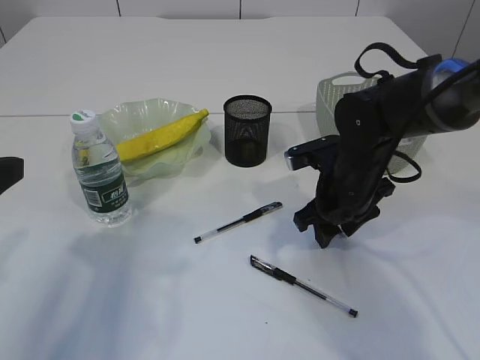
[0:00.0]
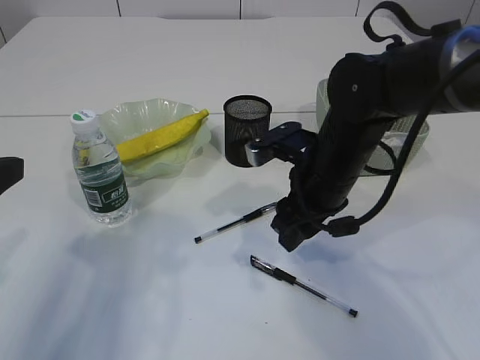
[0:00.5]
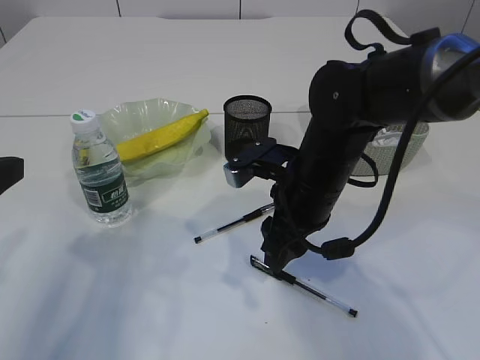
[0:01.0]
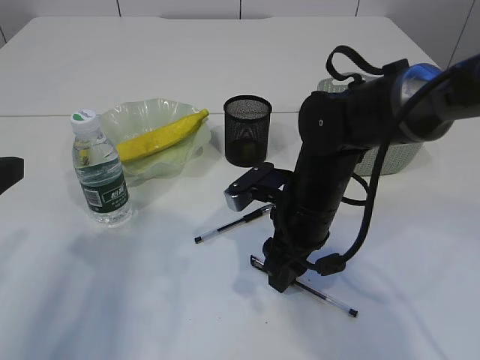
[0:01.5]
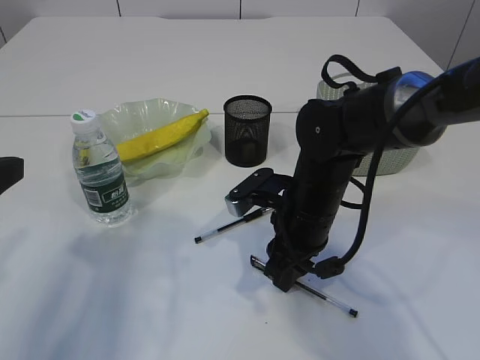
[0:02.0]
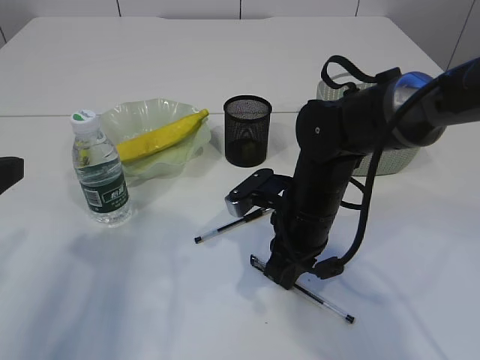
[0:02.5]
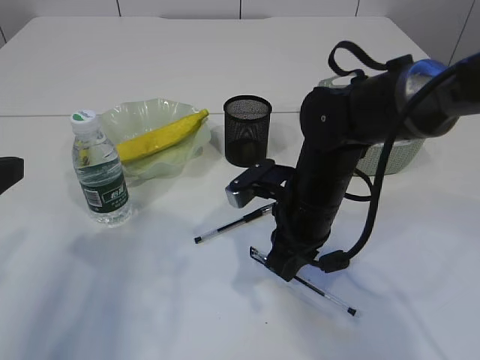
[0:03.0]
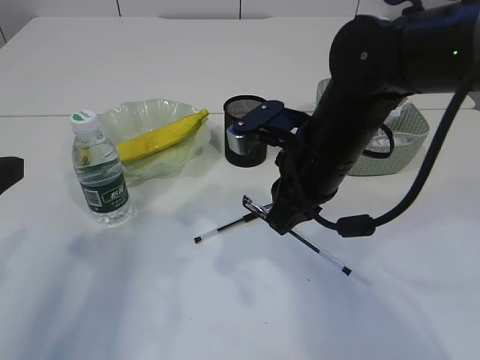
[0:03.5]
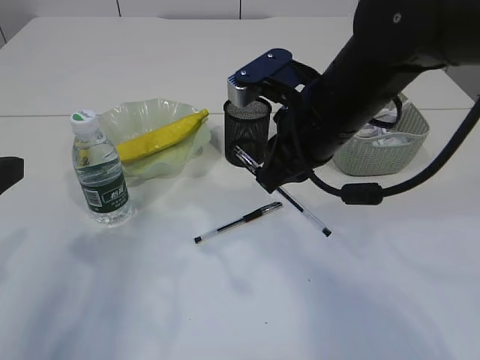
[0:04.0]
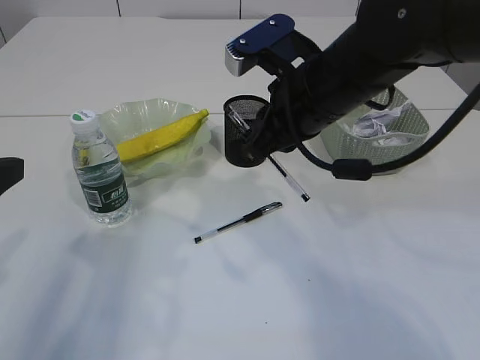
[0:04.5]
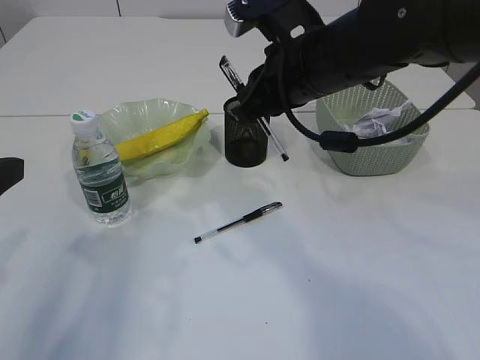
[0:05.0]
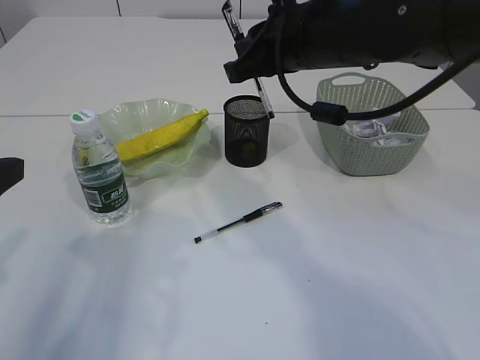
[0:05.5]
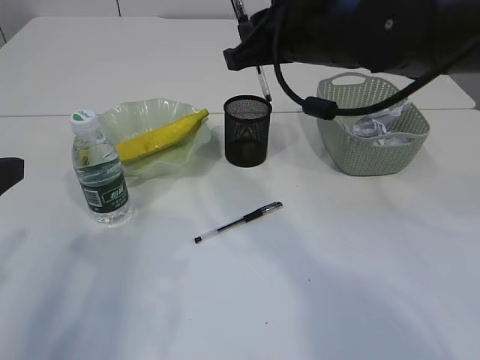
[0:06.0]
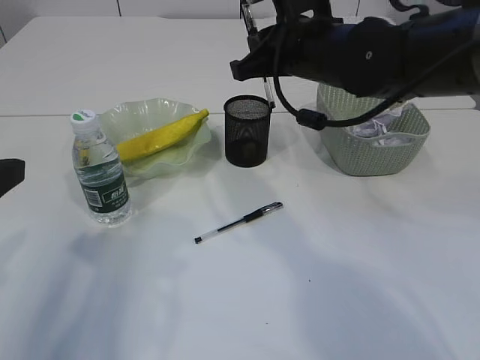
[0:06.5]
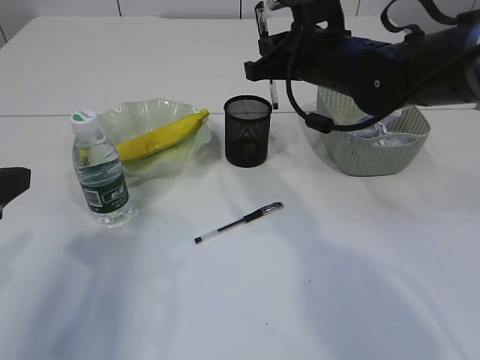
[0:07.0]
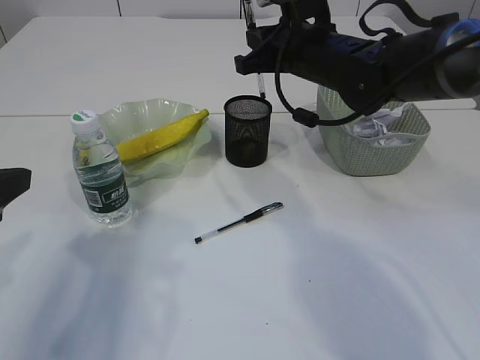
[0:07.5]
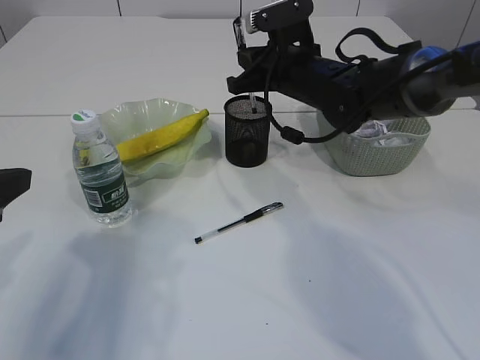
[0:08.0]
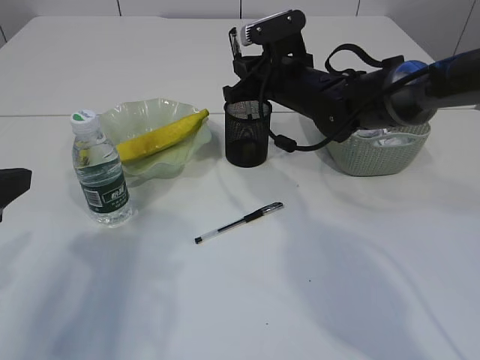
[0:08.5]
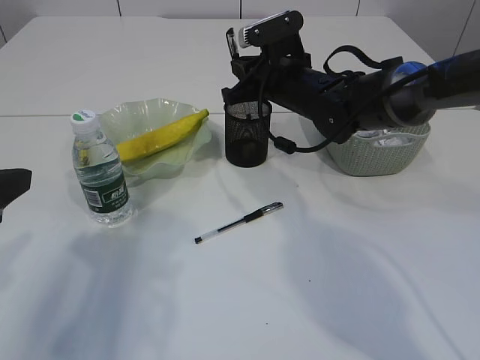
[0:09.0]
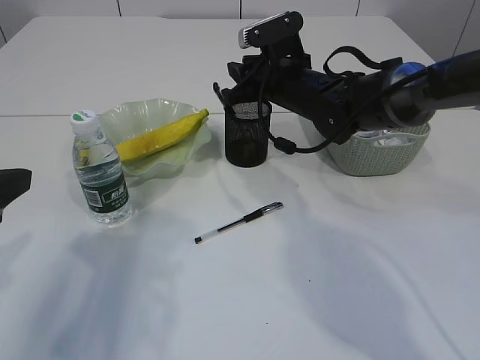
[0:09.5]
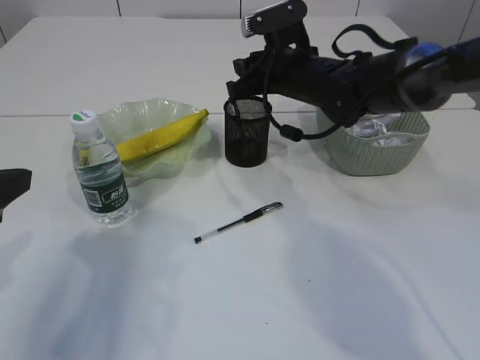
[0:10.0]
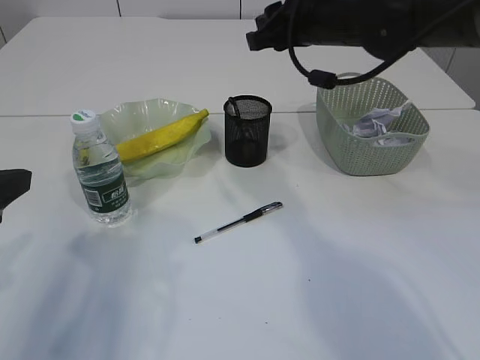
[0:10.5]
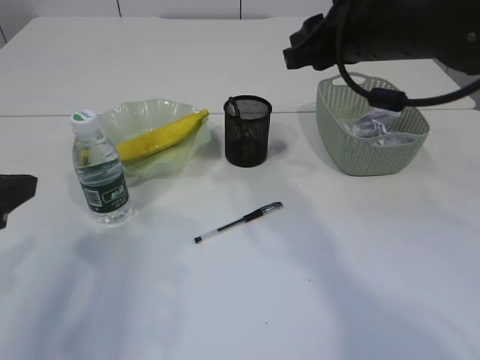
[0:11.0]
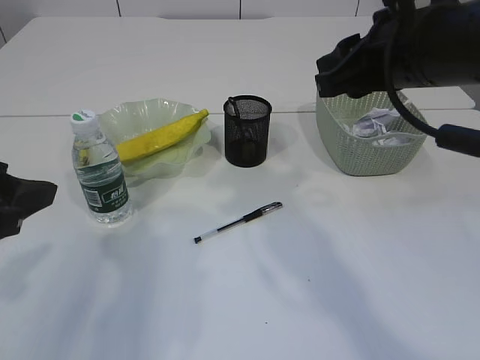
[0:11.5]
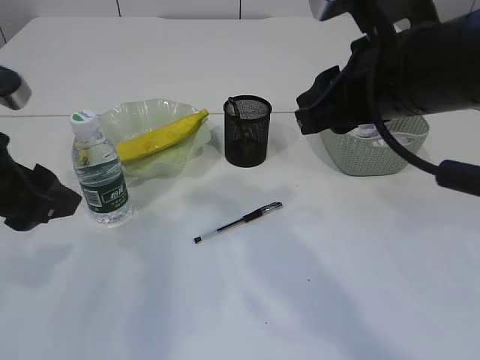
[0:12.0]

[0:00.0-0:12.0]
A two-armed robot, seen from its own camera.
Step, 0:00.0 to 0:03.5: Pick up the pen with right arm.
Step, 0:04.0 to 0:10.0: Place the pen into the pen holder.
0:00.0 to 0:02.0: The right gripper travels to the left by roughly 5 cm.
0:02.0 to 0:04.0: The right gripper shifts roughly 10 cm upward.
0:04.0 to 0:06.0: The right gripper shifts some 5 cm forward.
0:06.0 to 0:08.0: The right gripper heads downward and forward, covering approximately 10 cm.
0:08.0 to 0:10.0: The right gripper opens its fingers.
0:10.0 to 0:12.0: The left gripper ends up approximately 5 cm from where it was. Meanwhile the right gripper is displaced backward and upward by about 20 cm.

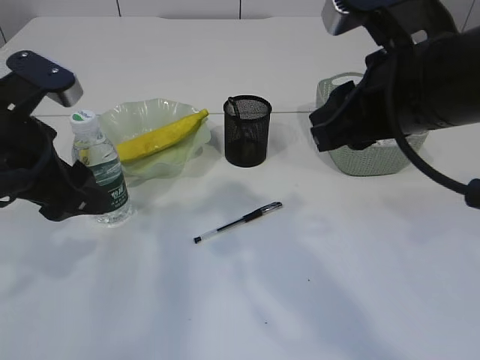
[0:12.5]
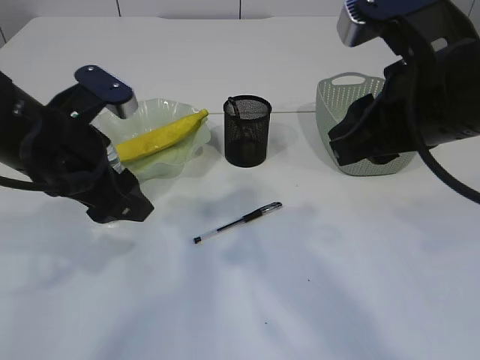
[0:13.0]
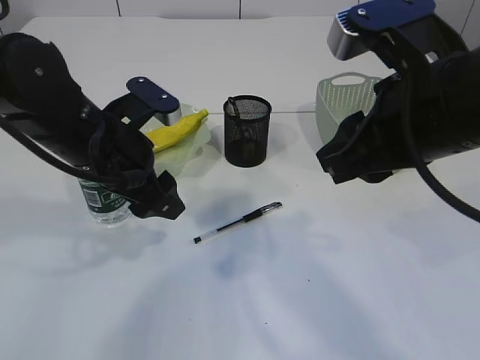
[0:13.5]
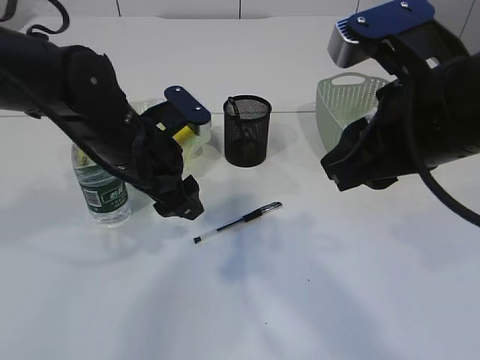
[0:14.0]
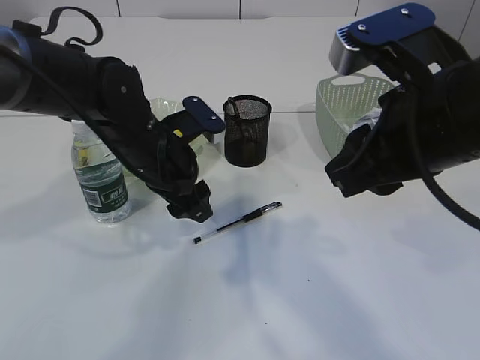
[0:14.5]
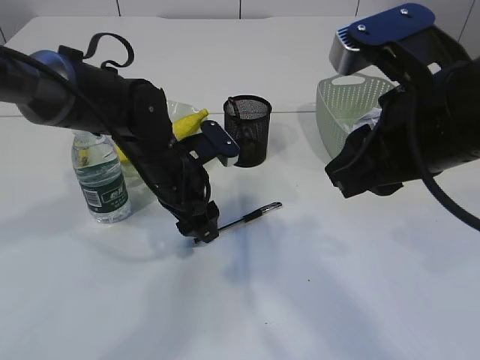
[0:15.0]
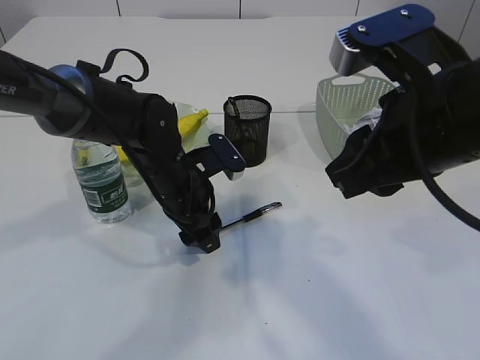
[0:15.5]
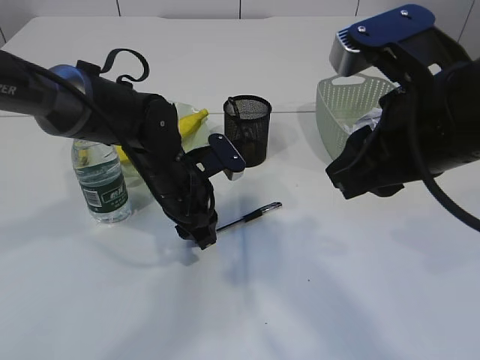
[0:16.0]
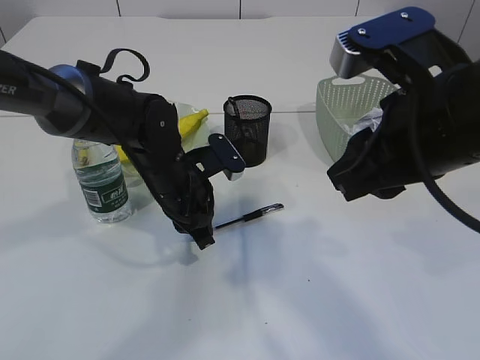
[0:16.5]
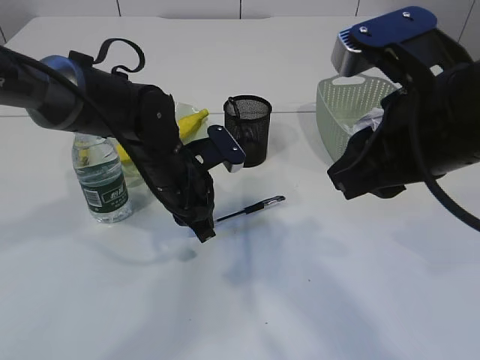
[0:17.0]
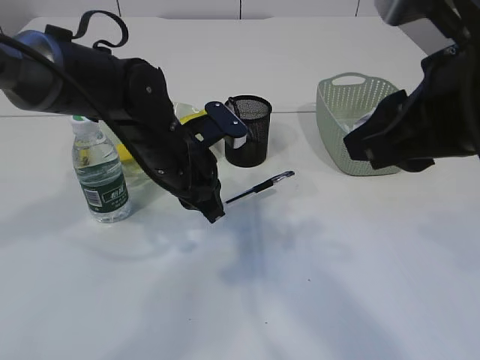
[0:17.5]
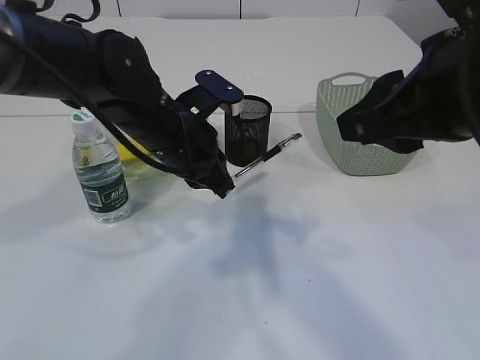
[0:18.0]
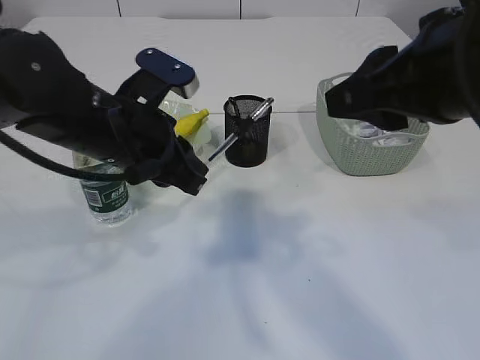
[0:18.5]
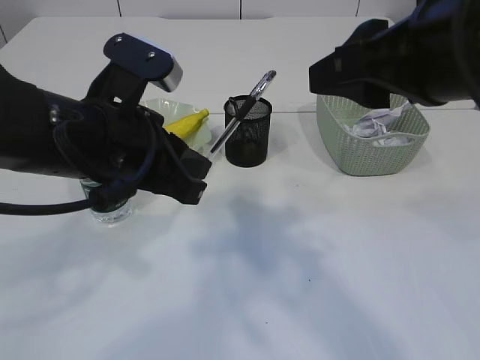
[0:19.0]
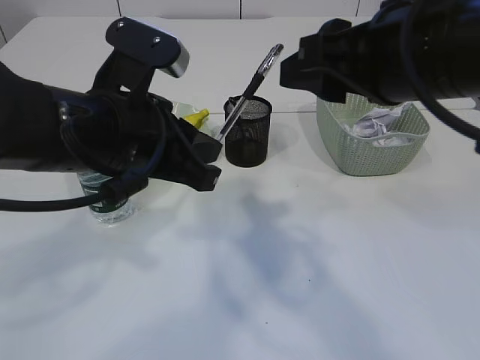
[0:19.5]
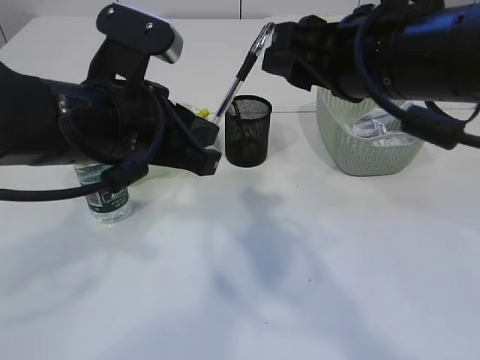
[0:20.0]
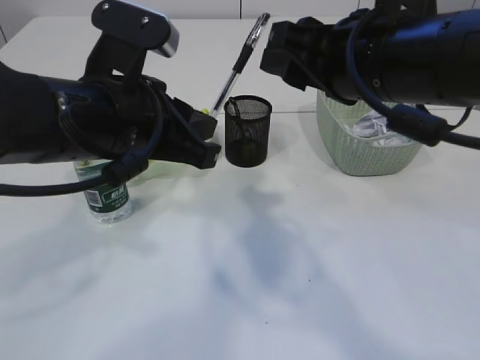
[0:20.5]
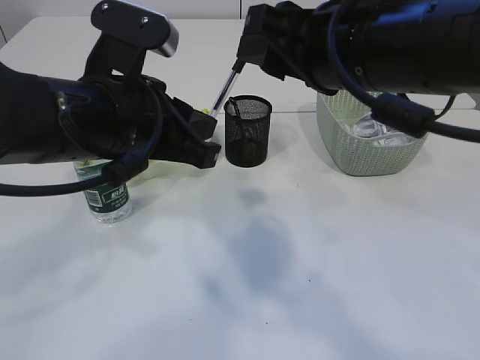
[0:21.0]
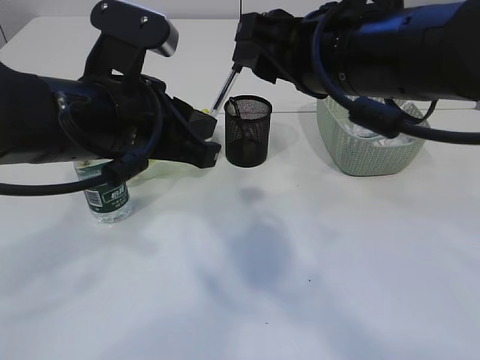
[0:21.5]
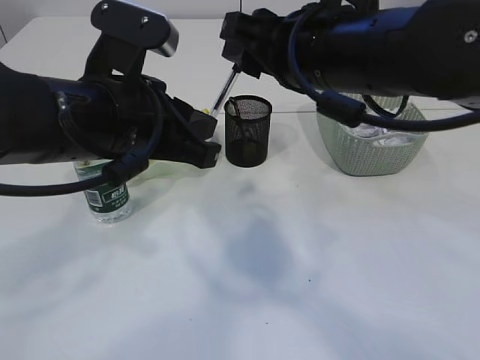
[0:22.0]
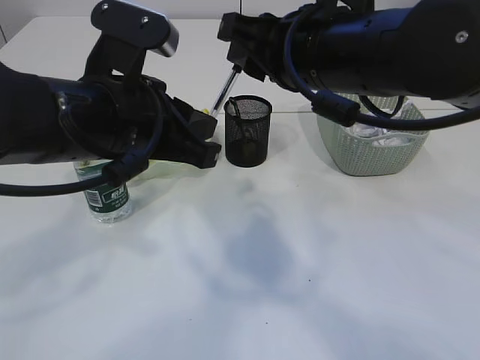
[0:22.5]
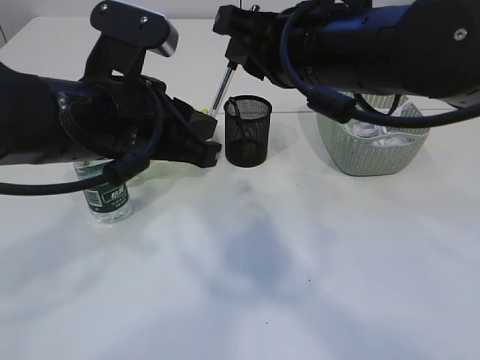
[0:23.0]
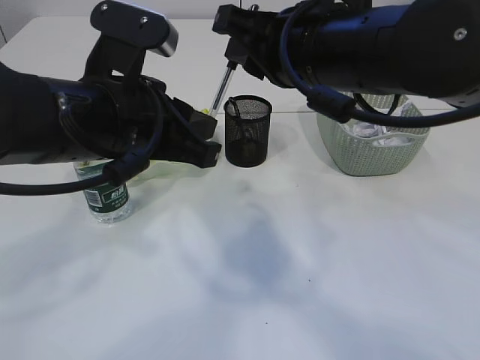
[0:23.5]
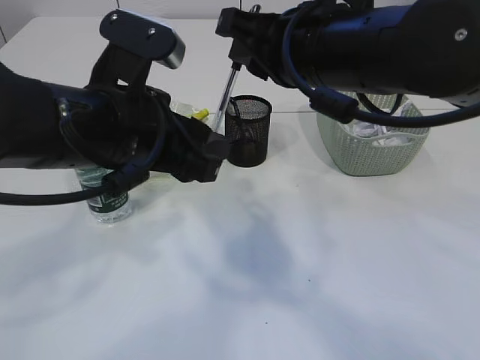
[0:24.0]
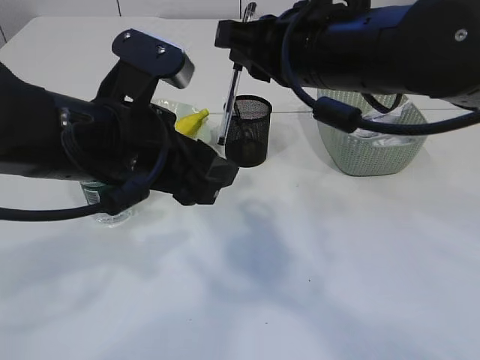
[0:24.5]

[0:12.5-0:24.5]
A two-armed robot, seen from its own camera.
Step, 0:12.5 to 0:18.0: Pick up the pen with left arm.
0:12.5 to 0:14.5: The left gripper moves to the right, forward and downward, roughly 15 cm.
0:14.5 to 0:16.5: The left gripper moves approximately 5 cm, and closes.
0:16.5 to 0:18.5: The left gripper moves upward and backward, approximately 10 cm.
0:18.5 to 0:20.5: The right gripper is displaced forward by about 5 cm. The left gripper shifts by some 5 cm.
0:20.5 to 0:22.5: There are only small adjustments of the grippers.
0:22.5 to 0:24.5: The left gripper opens its fingers.

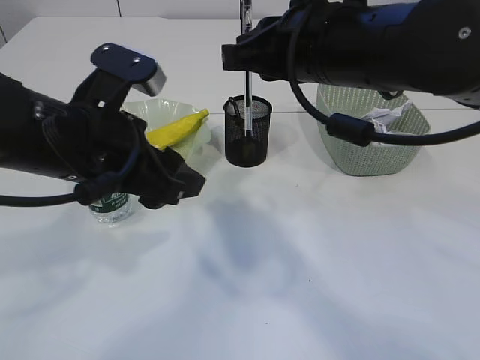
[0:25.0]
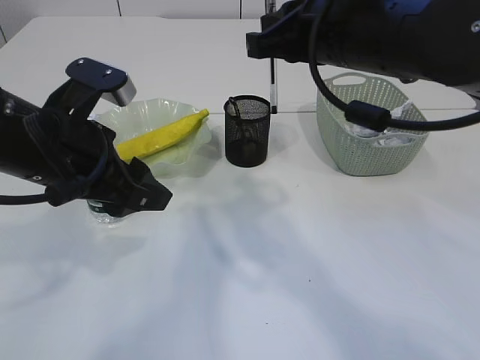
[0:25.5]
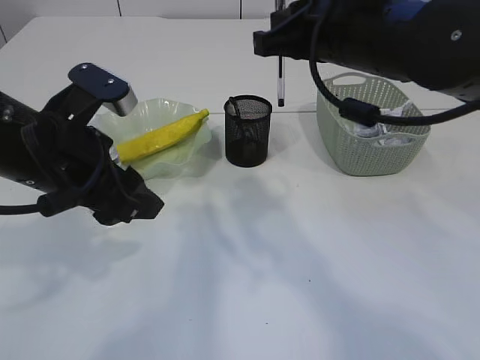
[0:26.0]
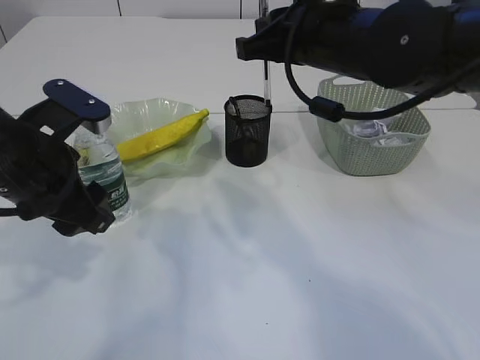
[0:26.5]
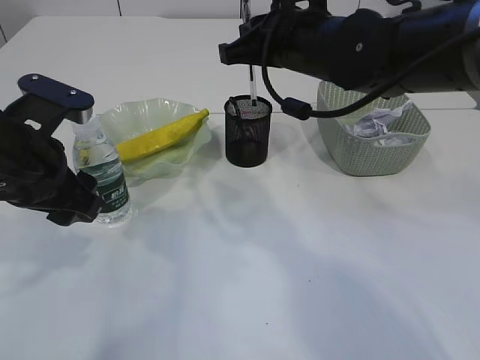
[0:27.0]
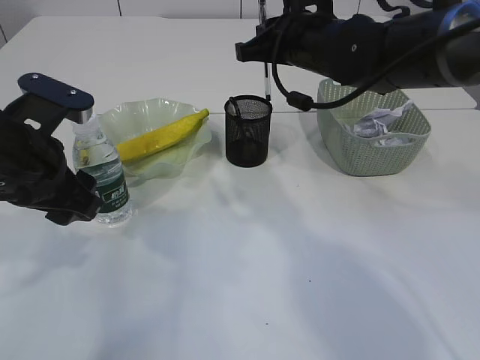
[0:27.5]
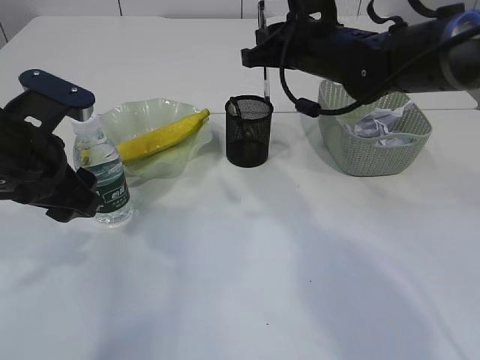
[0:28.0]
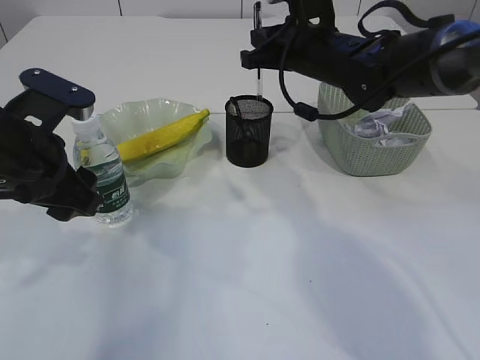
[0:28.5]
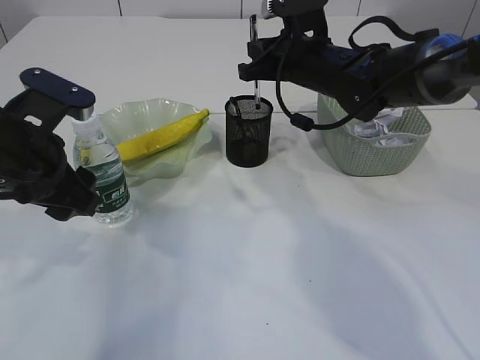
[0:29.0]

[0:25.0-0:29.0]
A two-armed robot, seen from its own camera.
0:25.0 to 0:27.0: The right gripper travels forward by about 10 cm. The left gripper goes about 5 cm to the left.
0:27.0 to 0:29.0: The right gripper heads forward and downward, covering approximately 10 cm.
